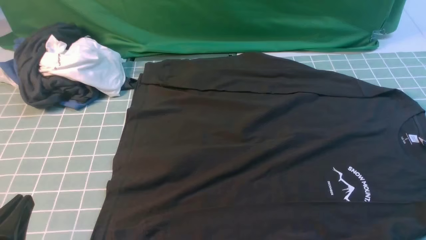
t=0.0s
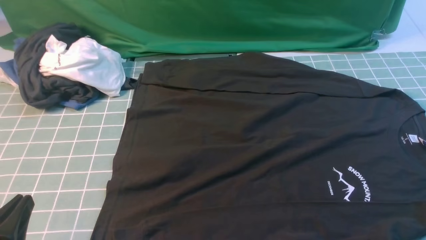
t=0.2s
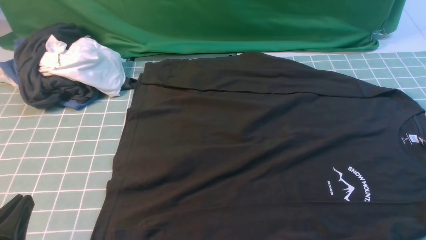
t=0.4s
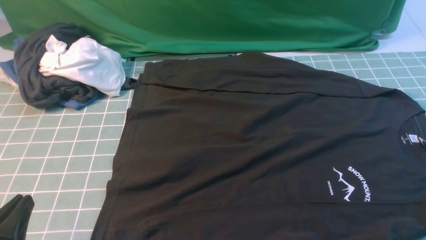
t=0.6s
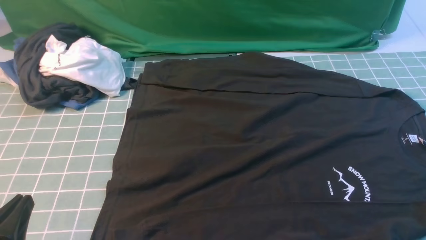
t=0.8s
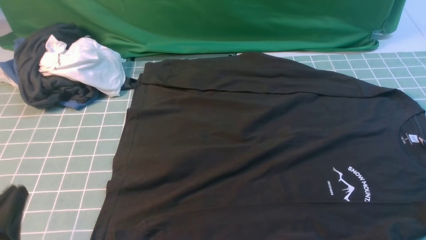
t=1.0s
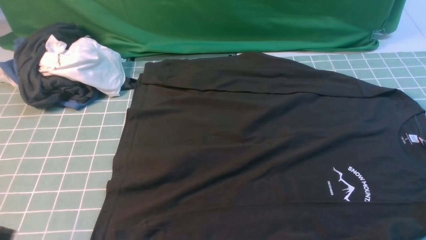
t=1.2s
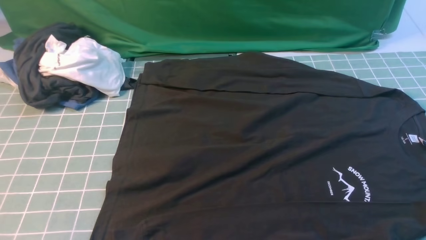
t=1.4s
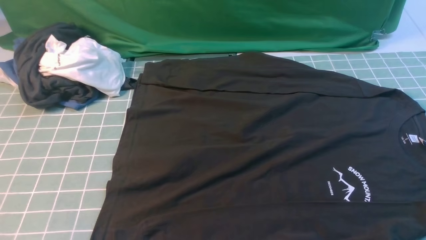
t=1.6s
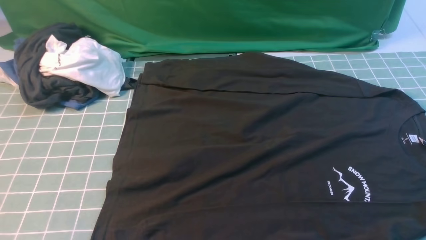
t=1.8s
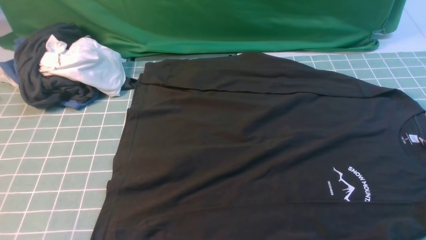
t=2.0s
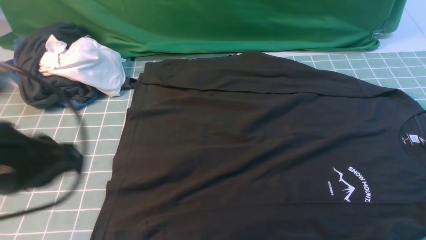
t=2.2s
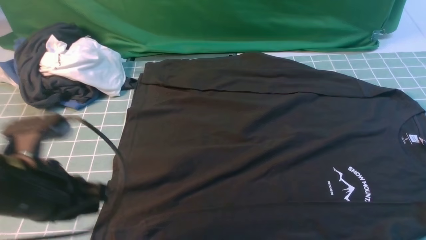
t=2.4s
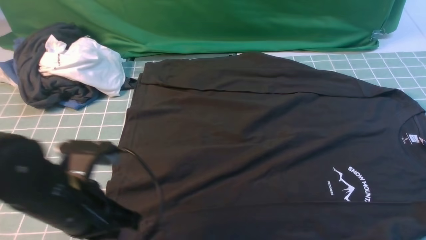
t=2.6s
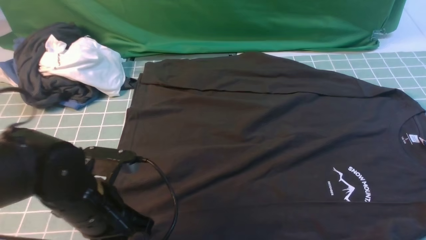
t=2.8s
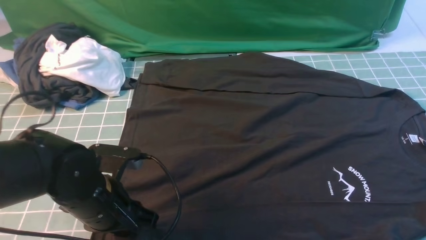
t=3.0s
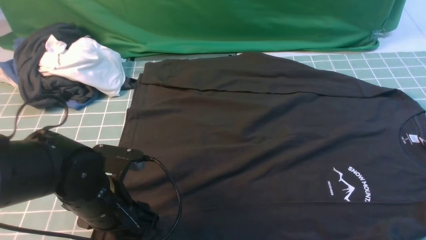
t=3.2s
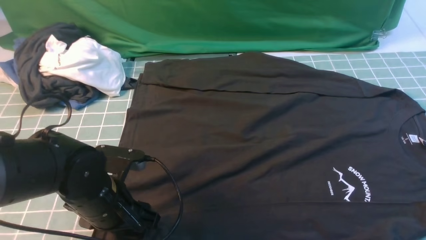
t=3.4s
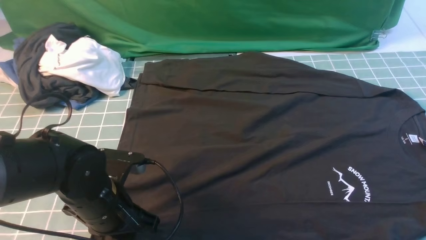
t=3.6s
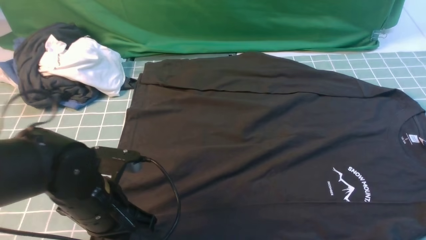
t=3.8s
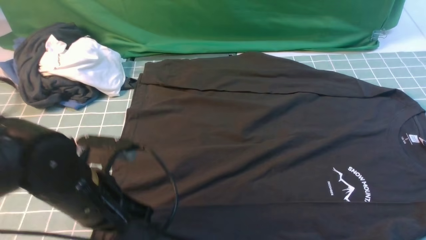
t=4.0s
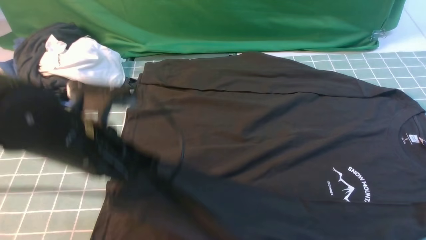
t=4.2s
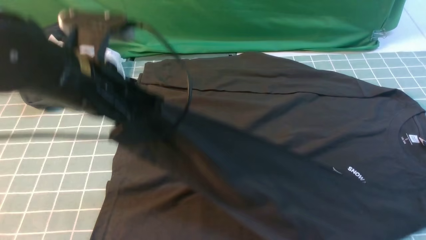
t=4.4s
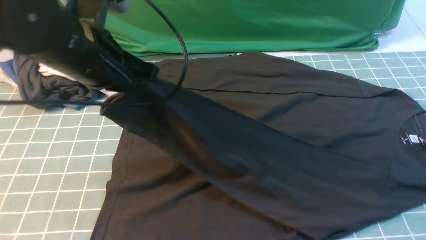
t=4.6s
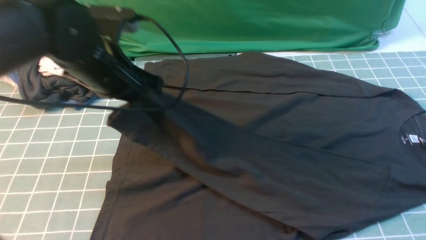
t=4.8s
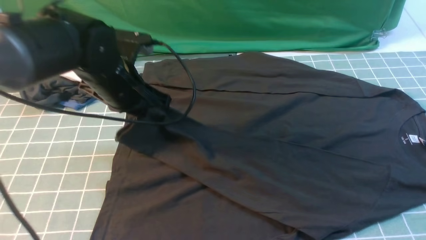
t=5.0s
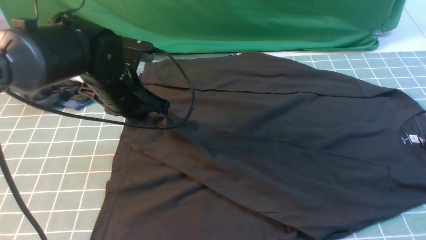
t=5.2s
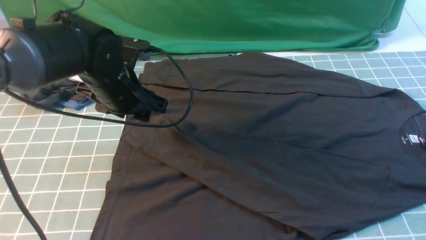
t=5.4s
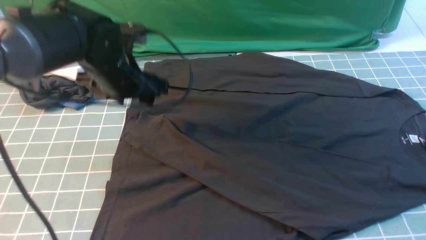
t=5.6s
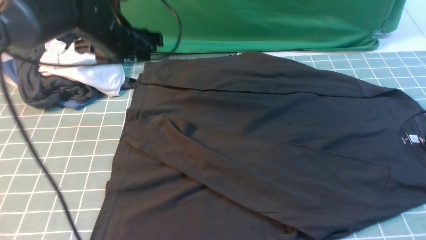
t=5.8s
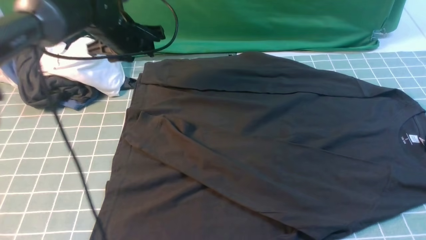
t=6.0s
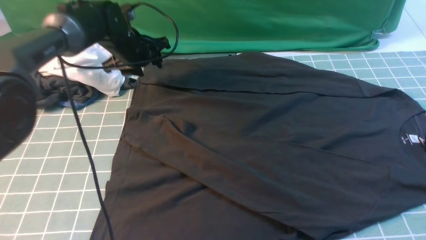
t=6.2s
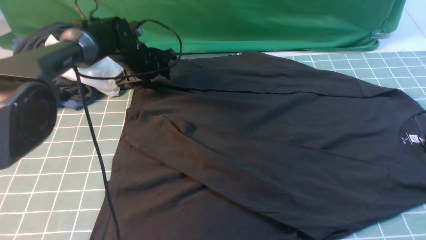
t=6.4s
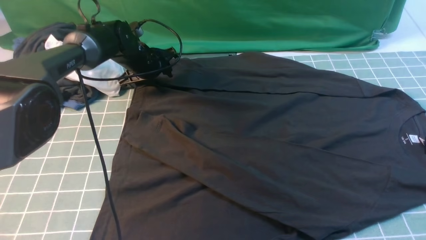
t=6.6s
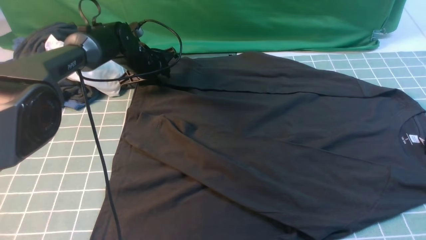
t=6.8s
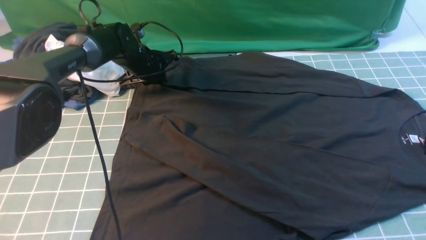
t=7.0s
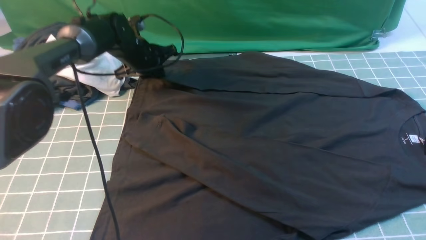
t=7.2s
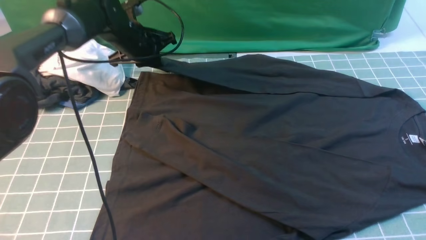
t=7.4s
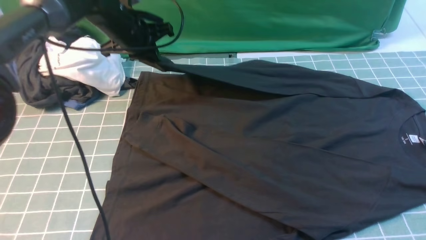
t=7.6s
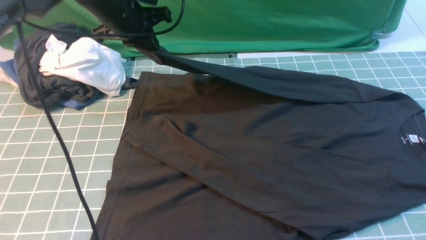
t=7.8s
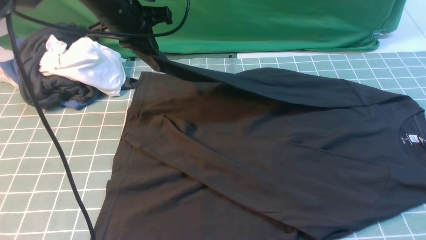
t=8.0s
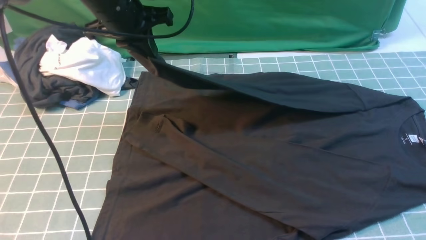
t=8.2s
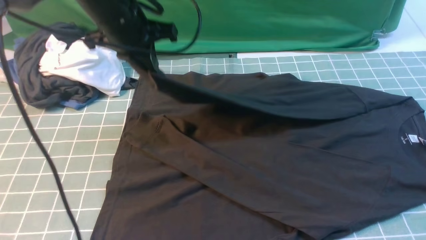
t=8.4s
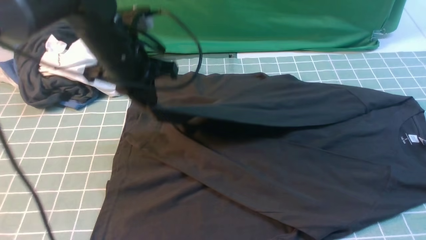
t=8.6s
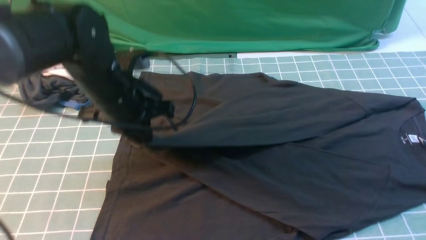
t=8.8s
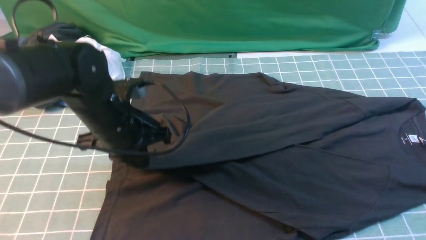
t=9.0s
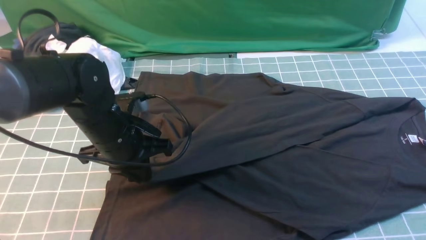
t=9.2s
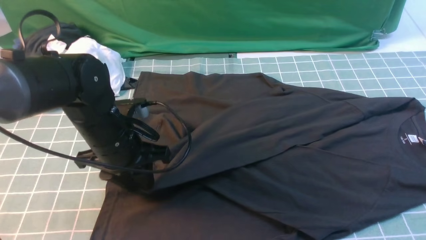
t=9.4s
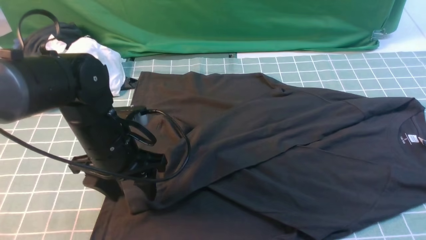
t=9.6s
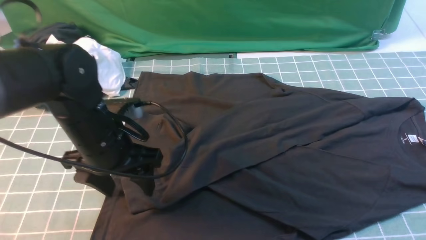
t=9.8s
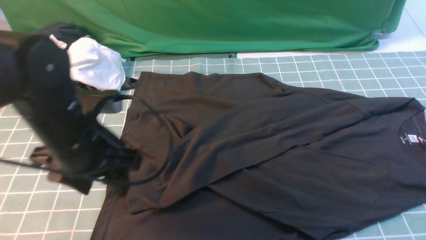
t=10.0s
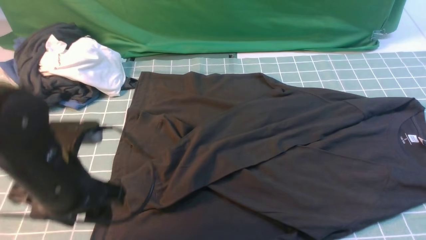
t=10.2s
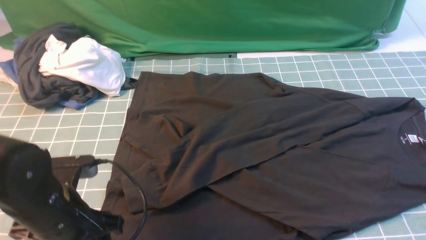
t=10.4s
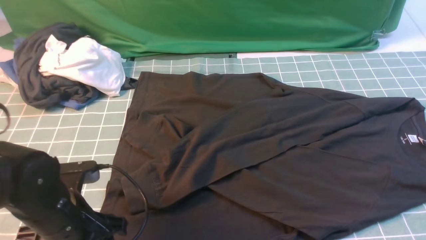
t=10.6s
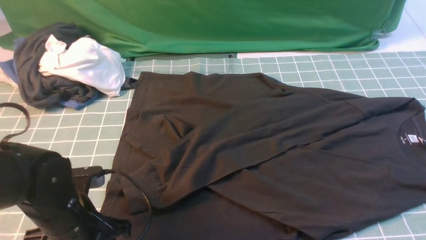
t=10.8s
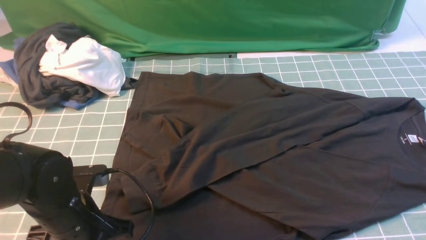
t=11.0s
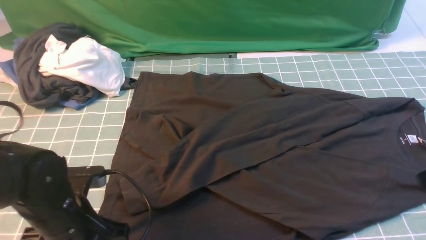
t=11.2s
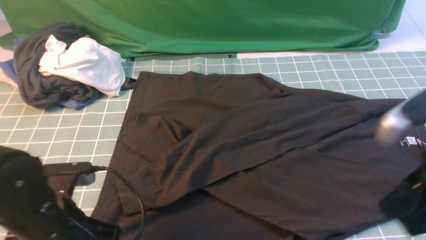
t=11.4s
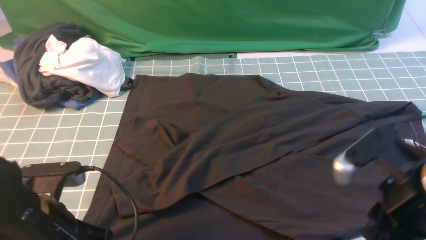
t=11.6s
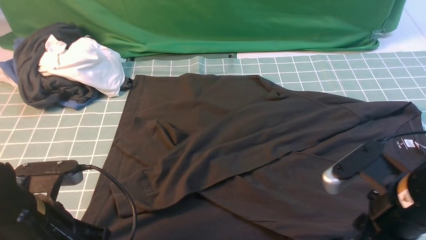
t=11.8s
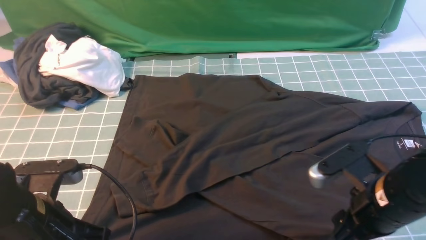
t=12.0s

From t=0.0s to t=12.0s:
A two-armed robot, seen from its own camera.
Step, from t=0.0s to t=4.0s: use the left arm to clamp the cuff closest to it.
Step, from t=4.2s to t=5.2s: use the left arm to drag and place the cuff at the centered position on the left edge of the fabric.
Step, from t=5.4s to t=7.2s: use the left arm to clamp the cuff farthest from it.
Step, from t=7.4s to t=9.6s: use the left arm to drag and drop the cuff onto the cuff closest to the left arm.
From t=0.0s to t=1.6s: The left gripper moves upward, approximately 10 cm.
From t=1.6s to t=3.0s: The right gripper heads upward, covering about 15 cm, and closes its fingers. The left gripper travels forward, downward and to the right by approximately 25 cm, and opens up.
From t=3.0s to t=4.4s: The left gripper moves upward, about 15 cm, and closes its fingers.
From t=4.4s to t=6.0s: The left gripper goes some 20 cm forward, and opens its fingers.
From t=6.0s to t=7.6s: The left gripper travels downward and back again, about 10 cm each way, and closes.
From t=7.6s to t=9.0s: The left gripper goes roughly 20 cm backward.
From t=9.0s to t=10.4s: The left gripper heads backward, covering approximately 10 cm, and opens up.
From t=10.4s to t=12.0s: The left gripper closes; the right gripper moves downward and to the left, some 20 cm, and opens up.

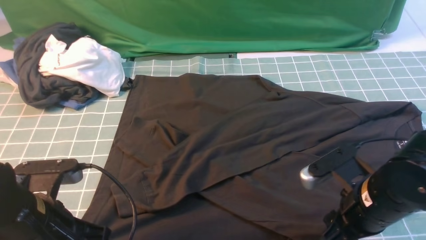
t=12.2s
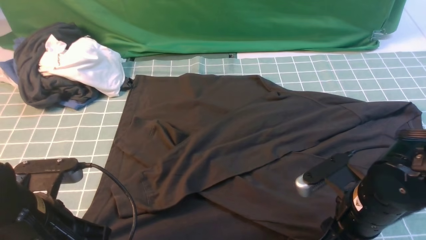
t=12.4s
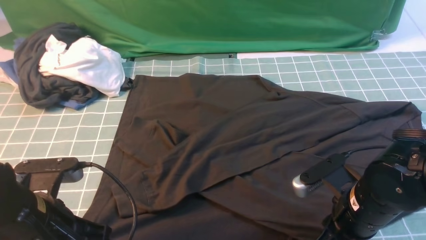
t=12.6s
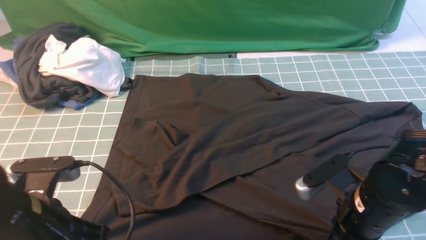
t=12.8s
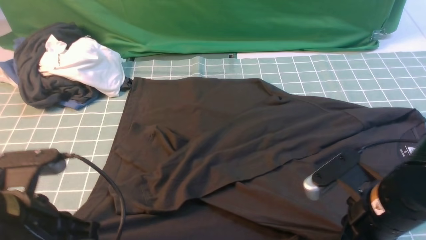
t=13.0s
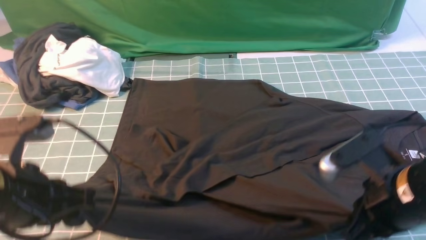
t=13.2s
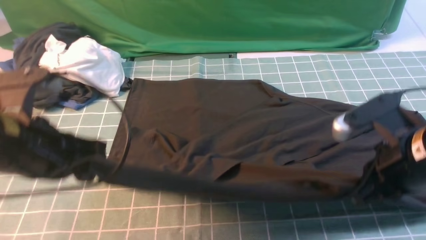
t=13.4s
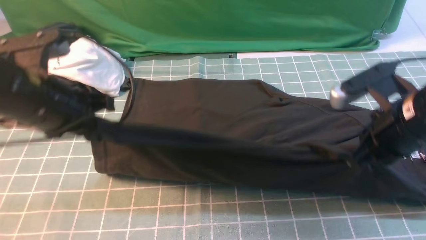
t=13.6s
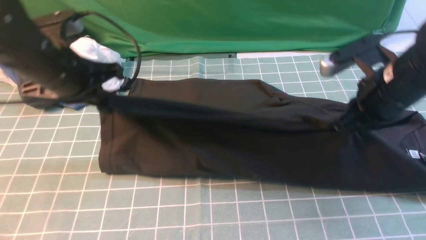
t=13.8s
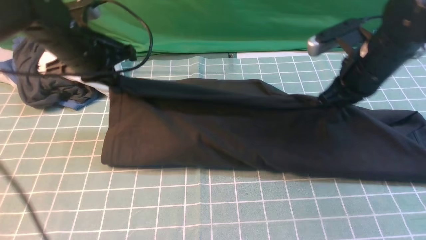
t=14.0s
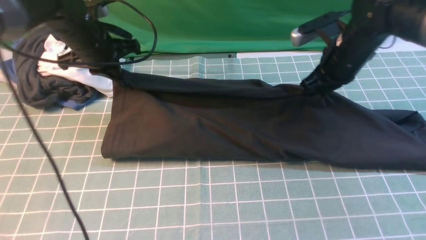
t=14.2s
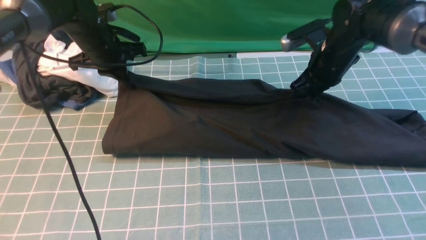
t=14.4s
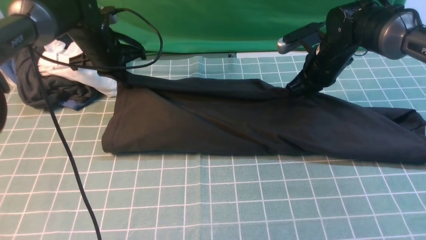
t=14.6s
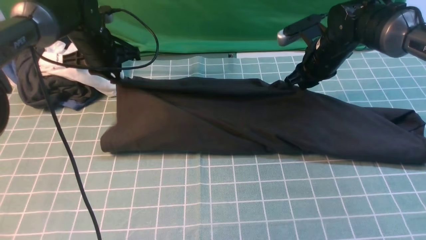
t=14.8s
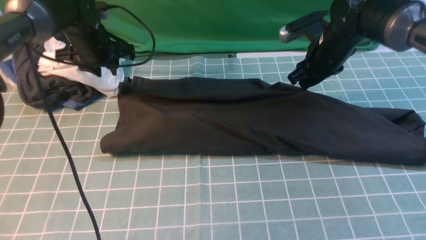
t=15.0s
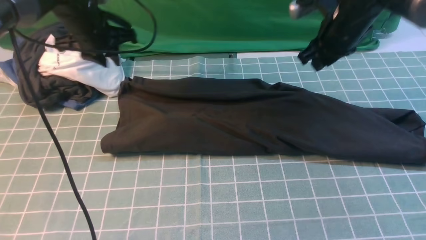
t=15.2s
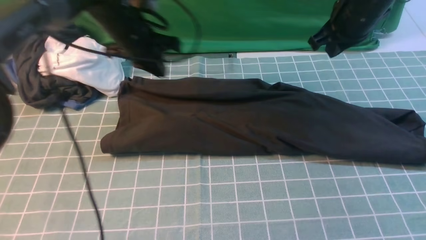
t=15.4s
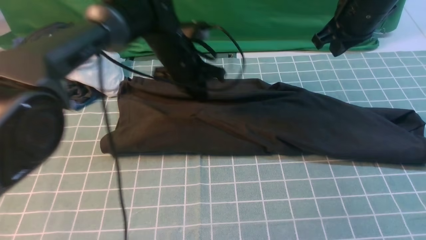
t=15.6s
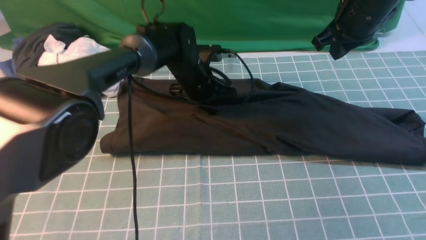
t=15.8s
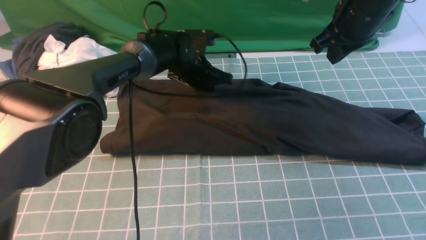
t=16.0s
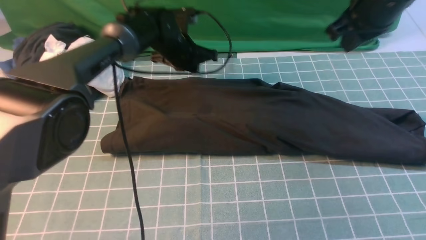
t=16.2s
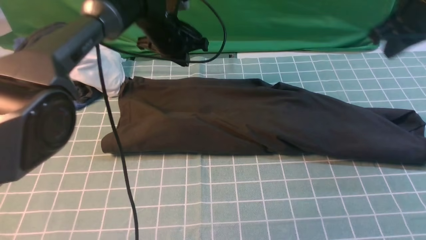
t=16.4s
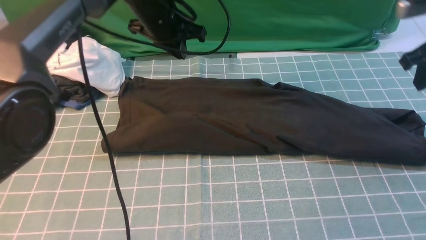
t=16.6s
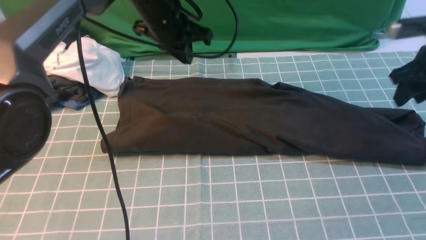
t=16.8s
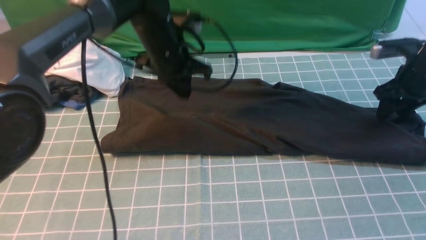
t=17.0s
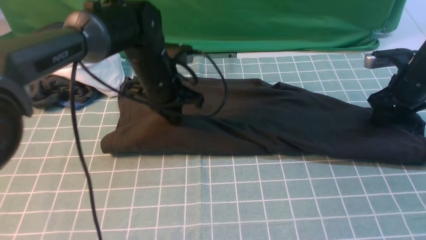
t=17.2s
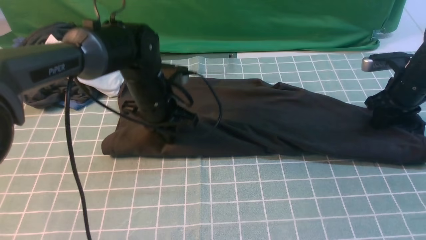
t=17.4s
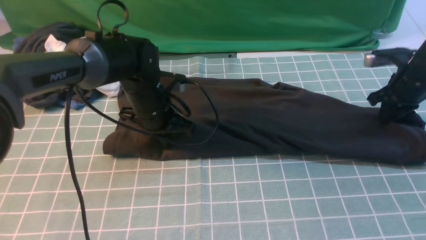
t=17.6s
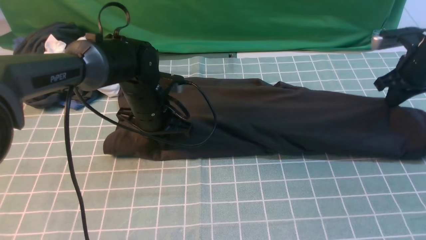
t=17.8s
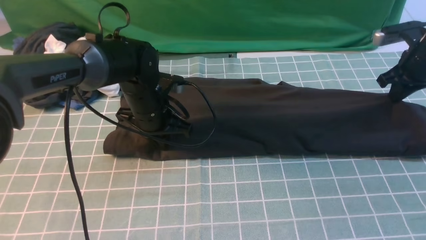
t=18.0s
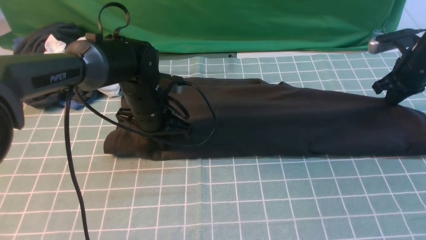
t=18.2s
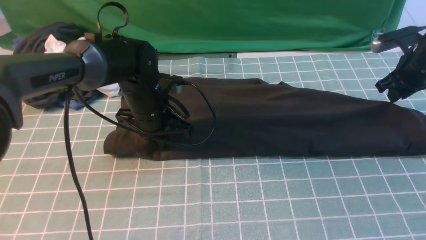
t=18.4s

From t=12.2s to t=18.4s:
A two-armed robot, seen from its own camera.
Step, from t=13.2s to t=16.4s: use both arms to drag the lower edge of the fabric forward and fold it over the upper edge.
From t=12.2s to t=13.8s: Both grippers move forward and upward, some 20 cm. The right gripper closes.
From t=13.8s to t=15.4s: The left gripper shifts roughly 15 cm forward, to the right and downward. Meanwhile the right gripper goes approximately 10 cm forward.
From t=15.4s to t=16.8s: The right gripper heads to the right and downward, covering some 15 cm, and opens. The left gripper reaches roughly 5 cm downward, then returns.
From t=16.8s to t=18.4s: The right gripper moves some 5 cm, and closes, then opens again. The left gripper heads downward and backward, covering roughly 10 cm.
